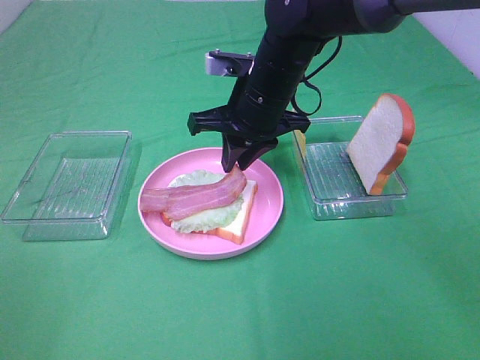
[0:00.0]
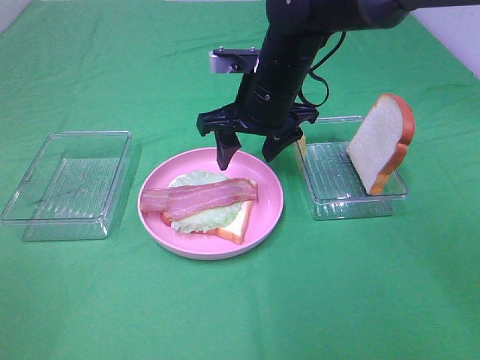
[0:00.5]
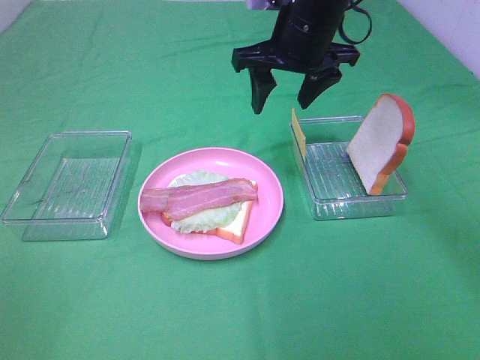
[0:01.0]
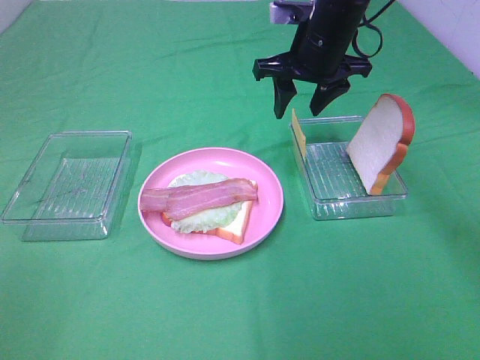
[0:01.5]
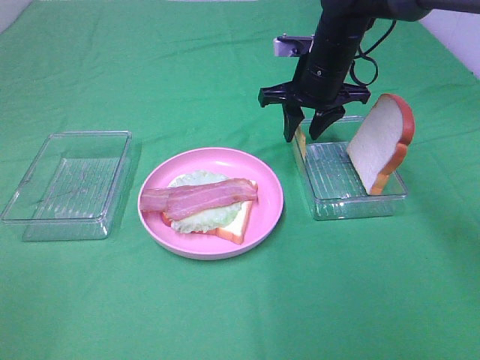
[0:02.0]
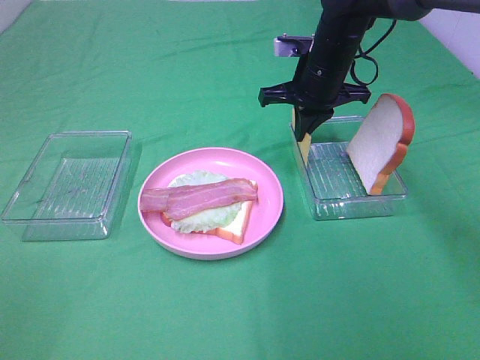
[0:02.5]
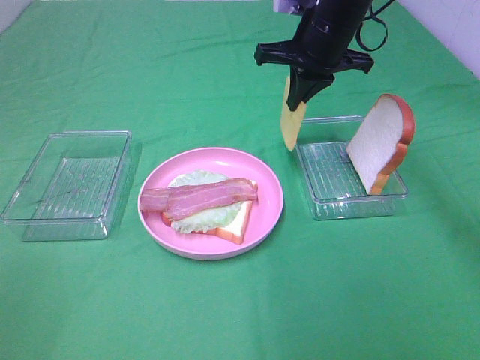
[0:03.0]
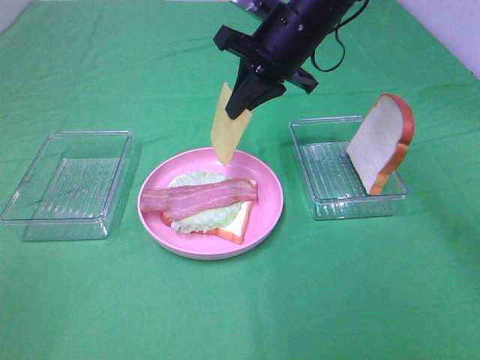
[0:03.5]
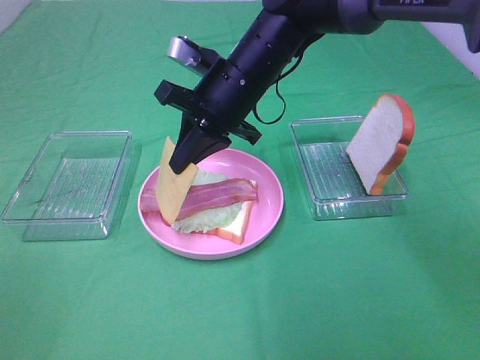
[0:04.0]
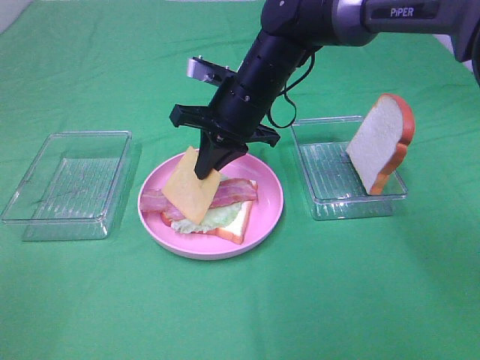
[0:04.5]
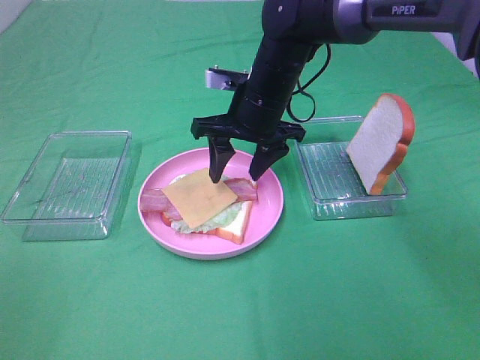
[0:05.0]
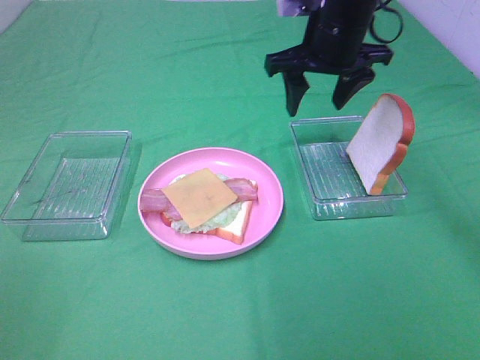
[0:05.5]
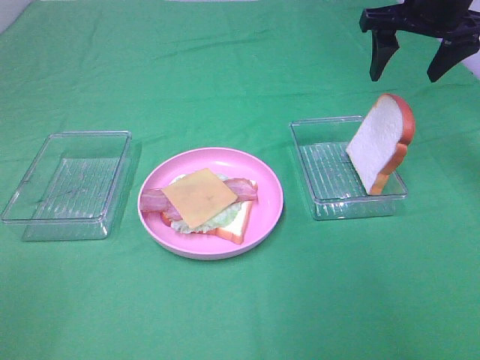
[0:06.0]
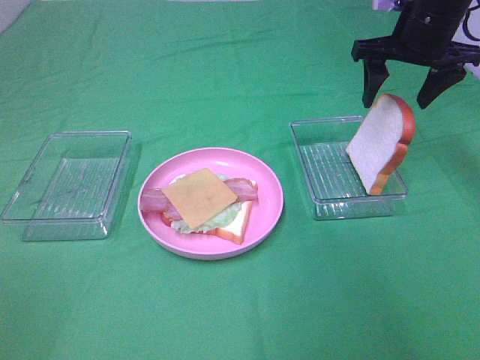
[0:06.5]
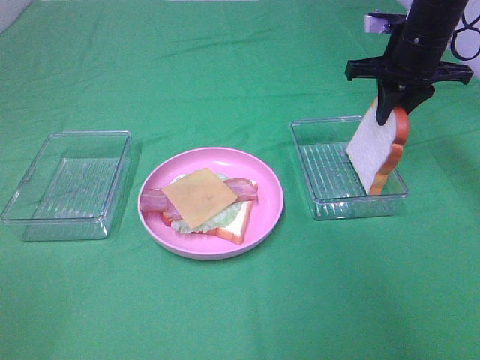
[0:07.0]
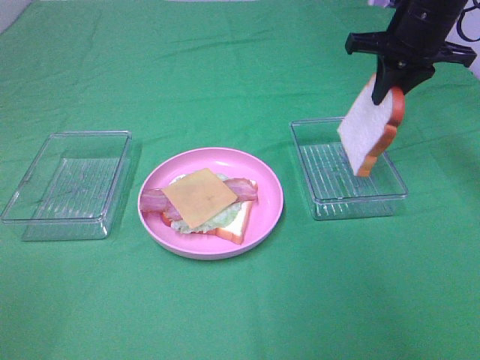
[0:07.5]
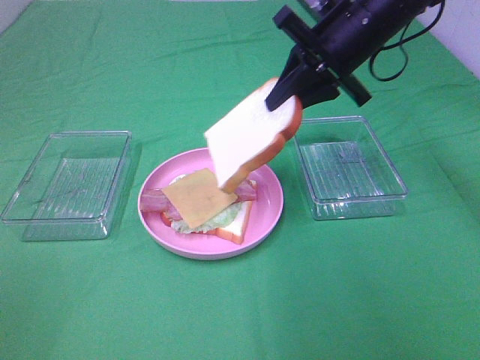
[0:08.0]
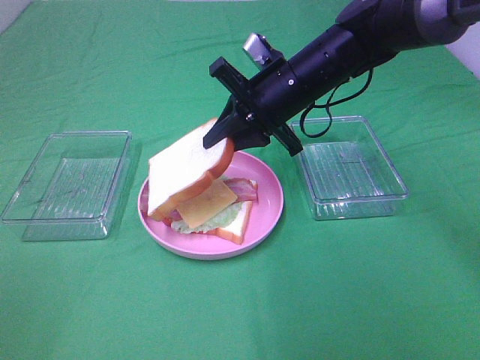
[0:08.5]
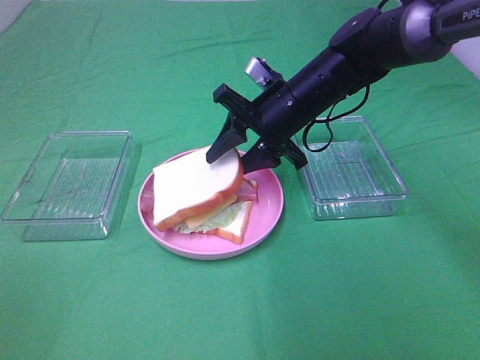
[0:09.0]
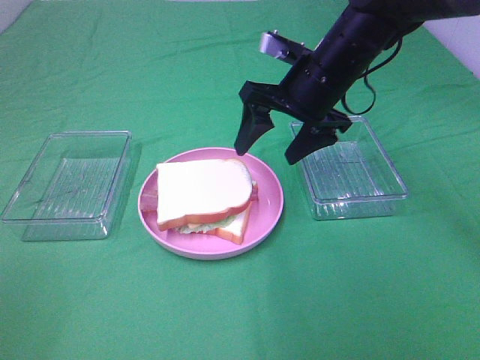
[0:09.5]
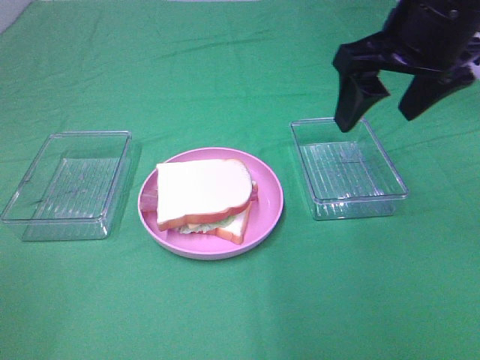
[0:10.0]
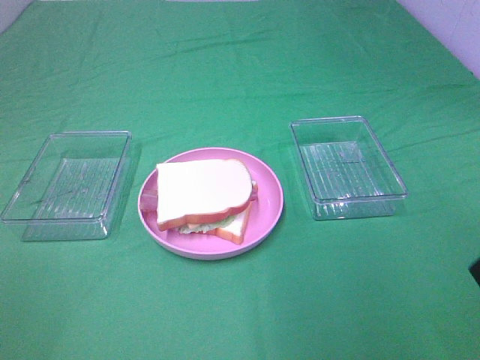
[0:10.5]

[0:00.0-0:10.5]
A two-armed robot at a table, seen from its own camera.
Task of the whole recording: Make sandwiches.
Step, 0:00.5 to 0:02.5: Right hand:grab the cheese slice.
Step, 0:03.0 to 0:05.0: Right hand:place the cheese slice on top of the bacon.
Step, 0:05.5 to 0:07.0: Right hand:grab the bread slice.
Step, 0:07.5 to 0:09.0: Right hand:place the bread slice on the cheese slice.
0:00.0 to 0:02.0: The right gripper goes approximately 10 cm to the right and forward, and opens, then closes once more.
0:02.0 to 0:04.0: The right gripper shifts roughly 15 cm to the left and backward, and closes its fingers.
0:04.0 to 0:06.5: The right gripper shifts about 20 cm to the right, and opens up.
0:06.5 to 0:08.5: The right gripper shifts some 15 cm to the left and downward, and closes.
0:08.5 to 0:10.5: The right gripper moves backward, to the right and upward, approximately 35 cm, and opens.

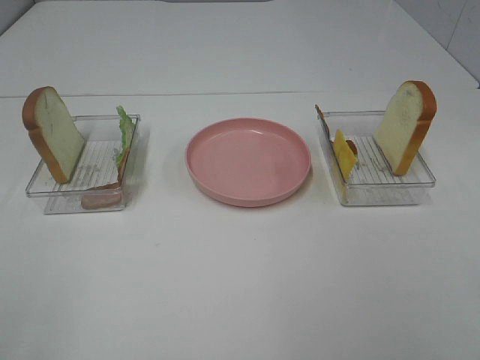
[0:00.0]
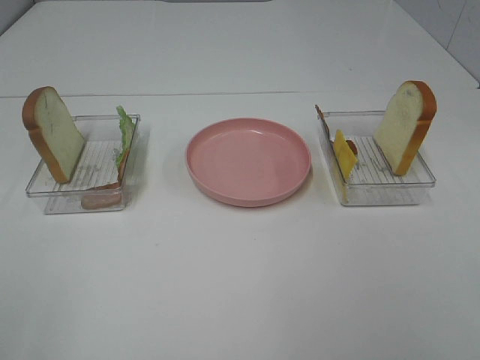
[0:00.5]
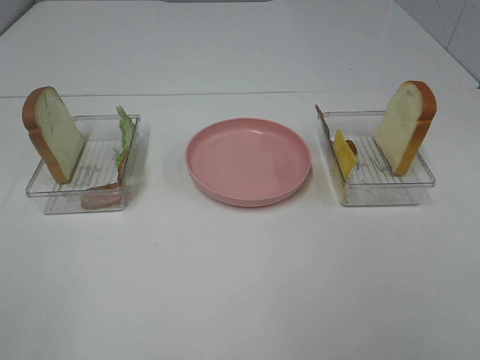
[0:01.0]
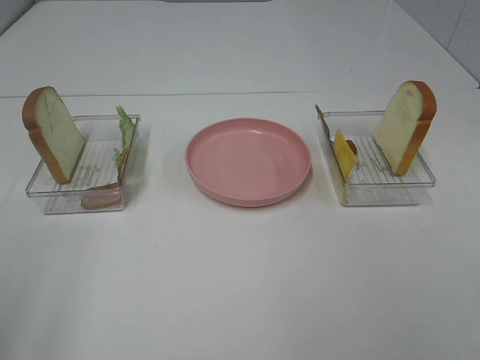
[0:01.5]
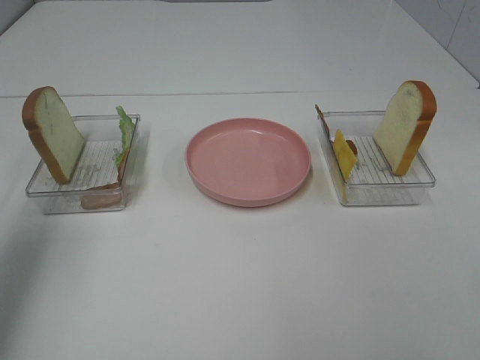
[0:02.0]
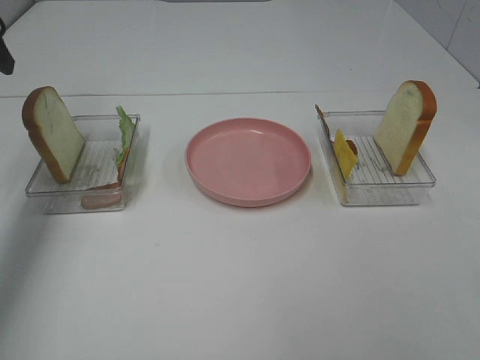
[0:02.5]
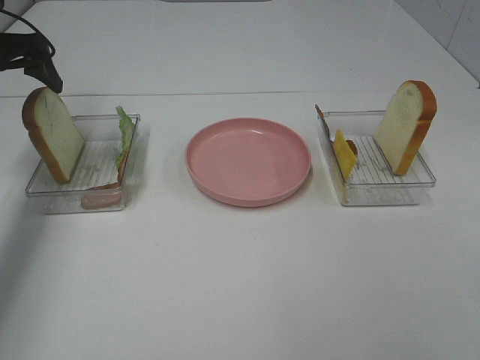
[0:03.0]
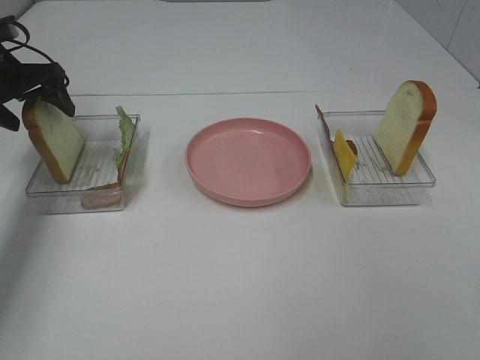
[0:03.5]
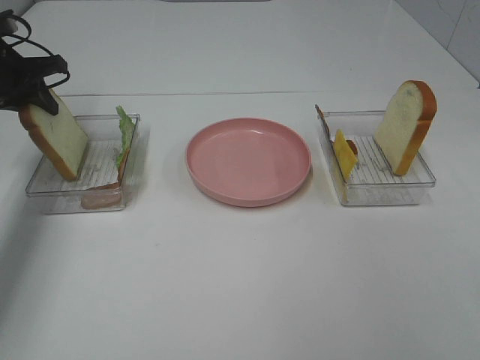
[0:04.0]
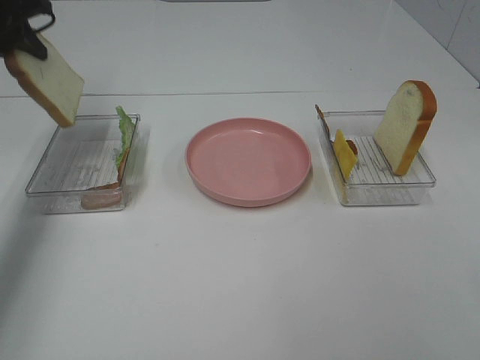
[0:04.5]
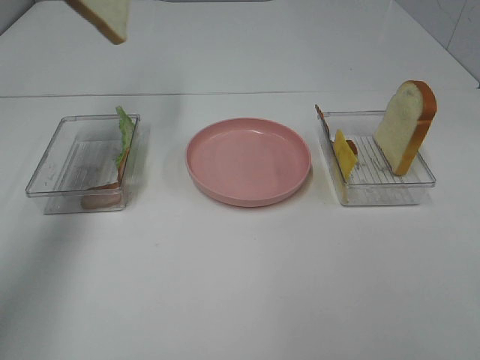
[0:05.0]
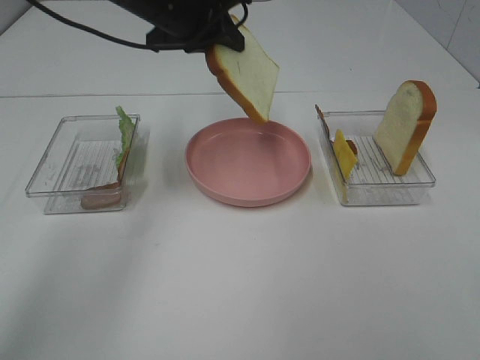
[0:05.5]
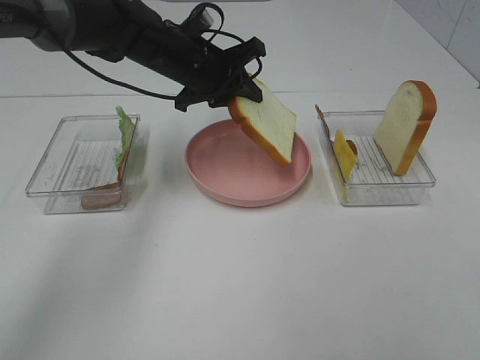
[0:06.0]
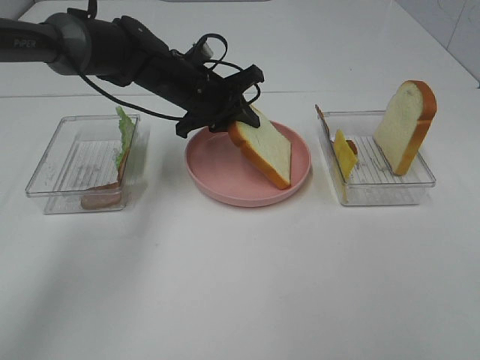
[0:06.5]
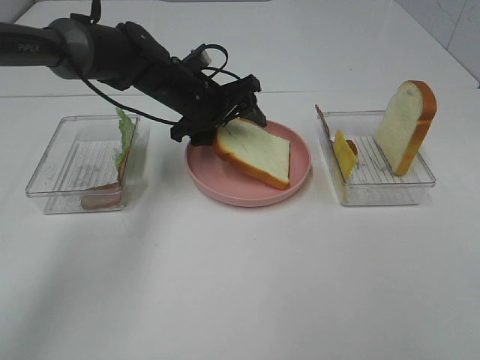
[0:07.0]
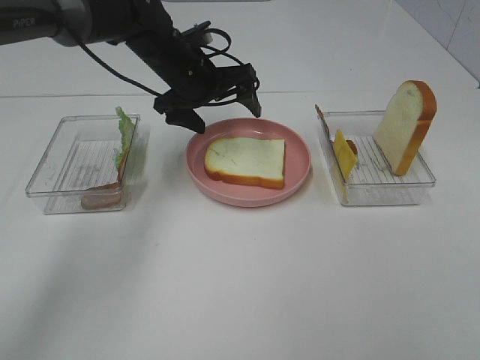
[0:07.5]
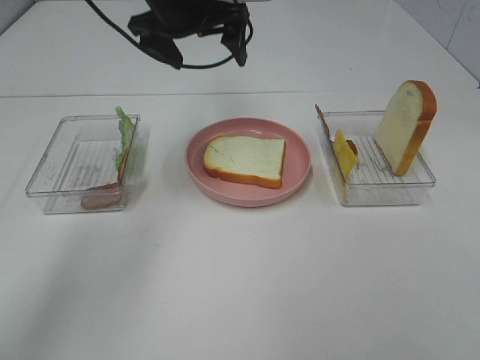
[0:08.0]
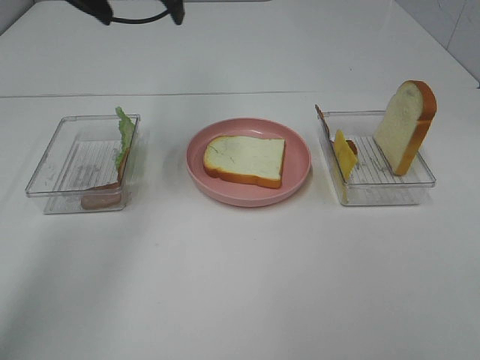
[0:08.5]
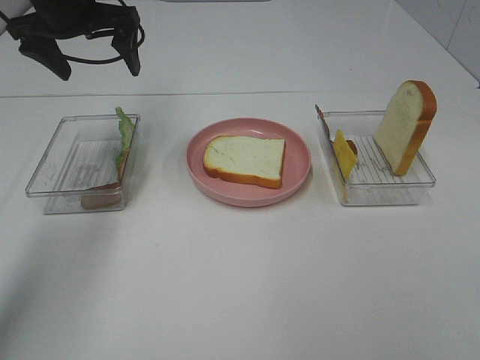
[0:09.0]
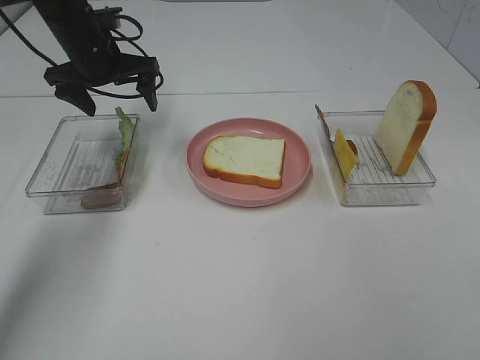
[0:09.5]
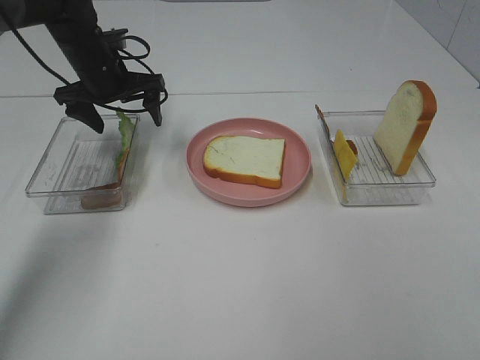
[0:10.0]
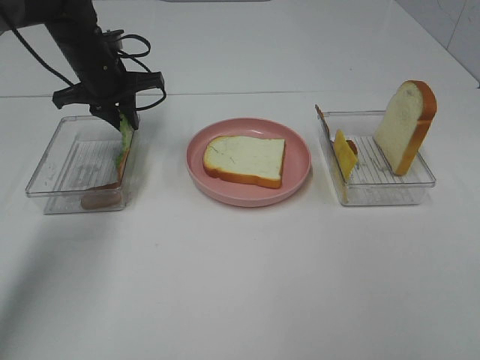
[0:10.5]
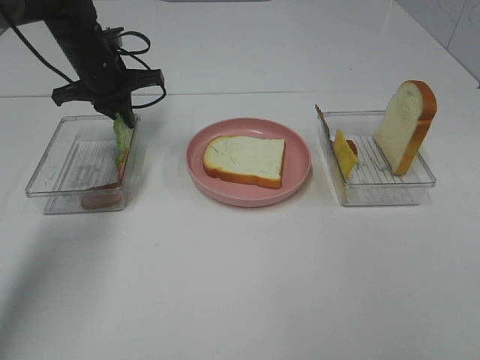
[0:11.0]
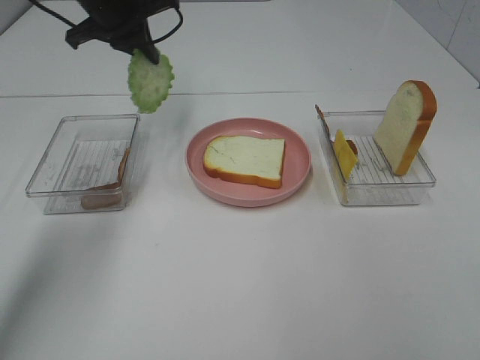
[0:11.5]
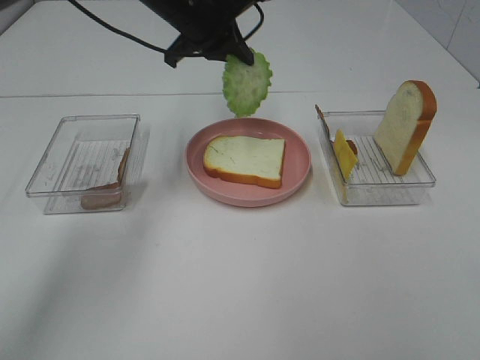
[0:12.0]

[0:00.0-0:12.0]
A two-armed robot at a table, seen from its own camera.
Task of the whole recording: Make sandwiches.
Step, 0:00.0 to 0:04.0: Left hand:grab the bread slice.
Step, 0:04.5 to 0:07.5: Left hand:place the bread slice on the plate.
Step, 0:08.0 to 0:10.5: Left hand:grab the lettuce slice.
0:00.0 to 0:02.0: The left gripper moves forward, approximately 25 cm.
0:02.0 to 0:04.0: The left gripper goes about 25 cm forward and downward, and closes its fingers.
0:04.0 to 0:06.0: The left gripper heads to the right, covering approximately 25 cm.
0:06.0 to 0:08.0: The left gripper is displaced upward by roughly 10 cm, and opens up.
0:08.0 to 0:10.0: The left gripper shifts roughly 15 cm to the left and downward.
0:10.0 to 0:12.0: The left gripper moves to the right and upward, approximately 15 cm, and closes up.

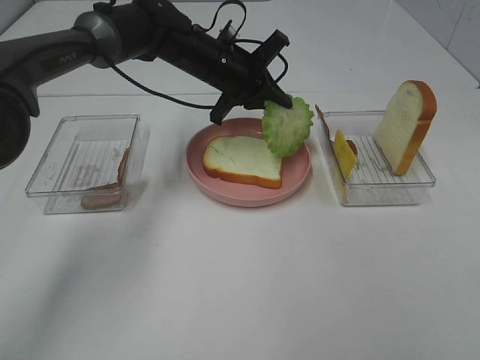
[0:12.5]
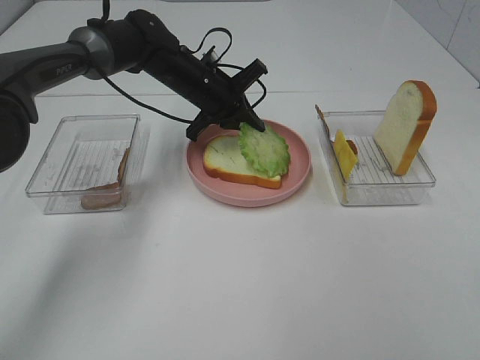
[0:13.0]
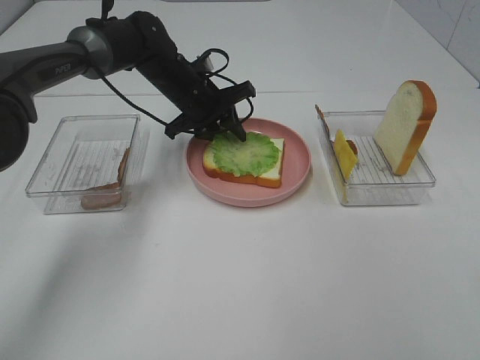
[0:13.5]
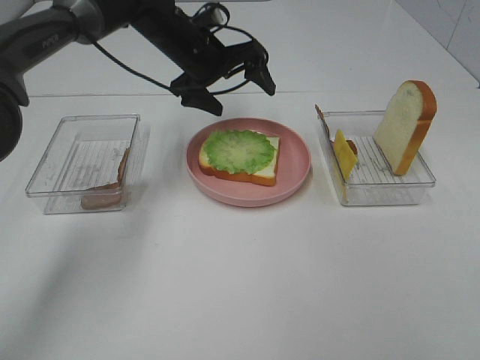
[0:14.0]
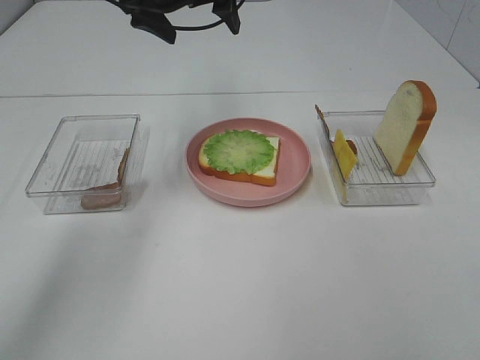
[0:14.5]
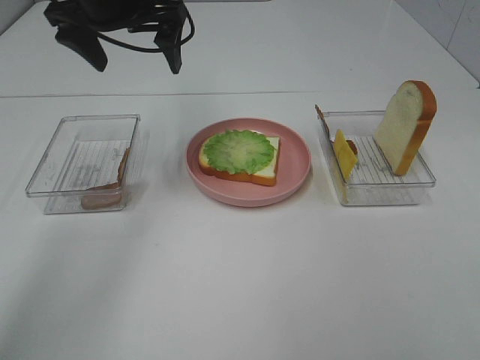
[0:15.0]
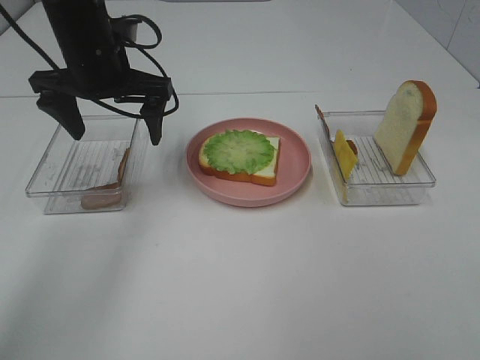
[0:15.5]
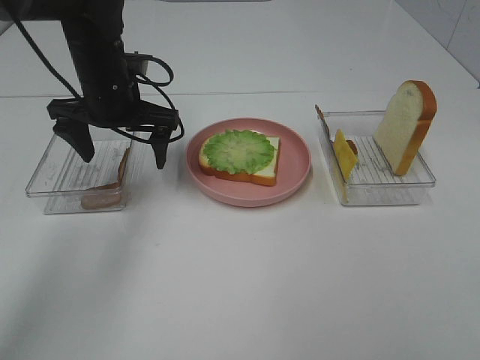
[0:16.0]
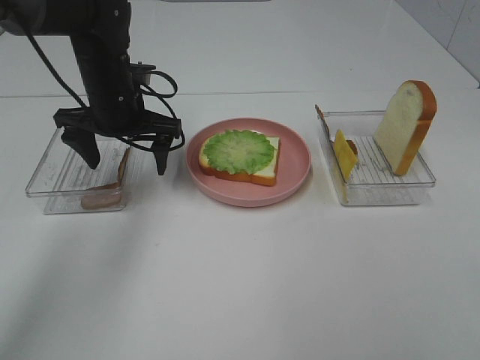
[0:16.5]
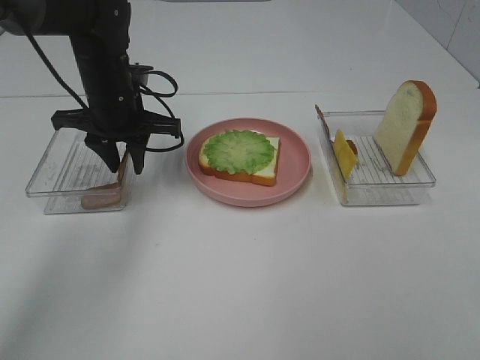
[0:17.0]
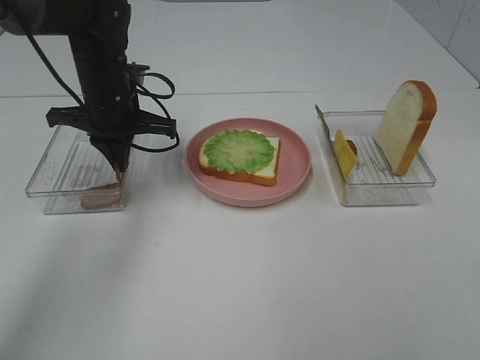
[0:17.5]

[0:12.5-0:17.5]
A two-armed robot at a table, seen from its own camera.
Task of the whole recording: Make sandwiches.
Step, 0:14.5 to 0:17.0: Left hand:grab the bacon.
0:12.5 to 0:15.0: The left gripper shifts approximately 20 cm upward, to the left and backward, and opens.
0:15.0 to 0:17.5: The left gripper shifts approximately 15 cm downward, and closes its fingers.
